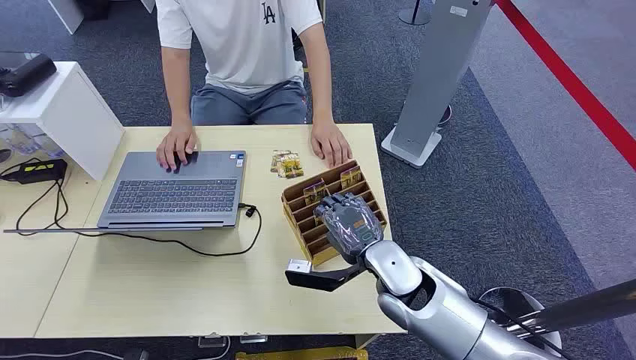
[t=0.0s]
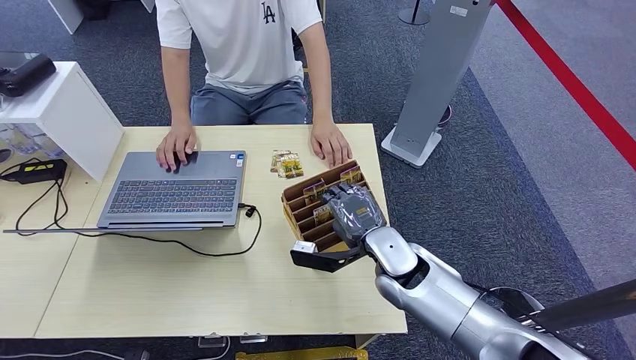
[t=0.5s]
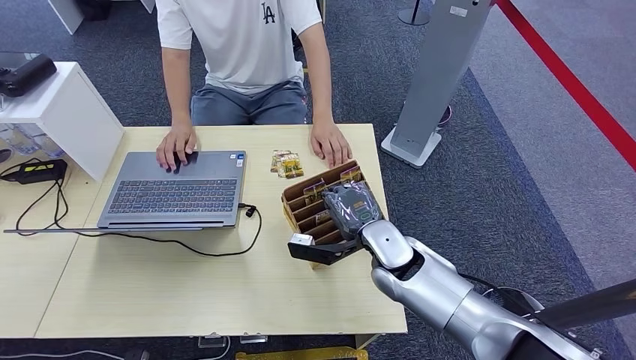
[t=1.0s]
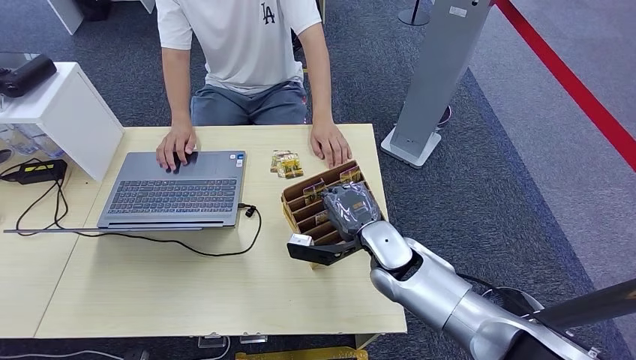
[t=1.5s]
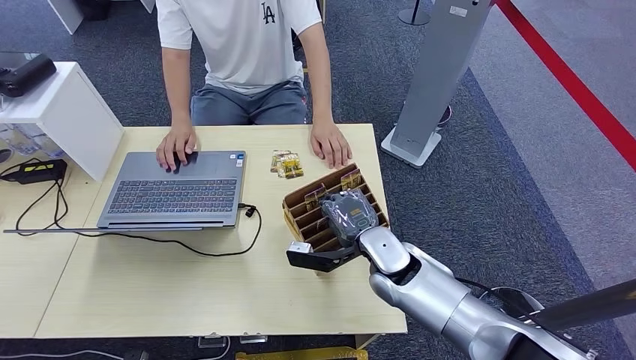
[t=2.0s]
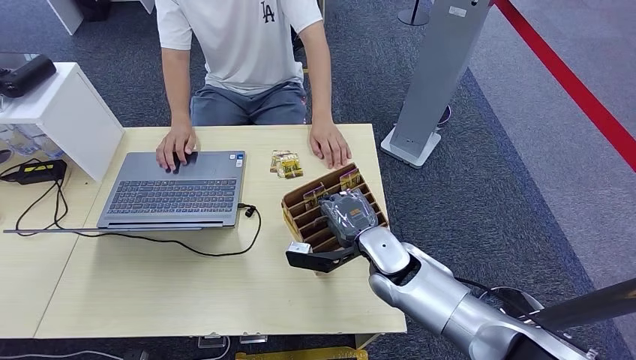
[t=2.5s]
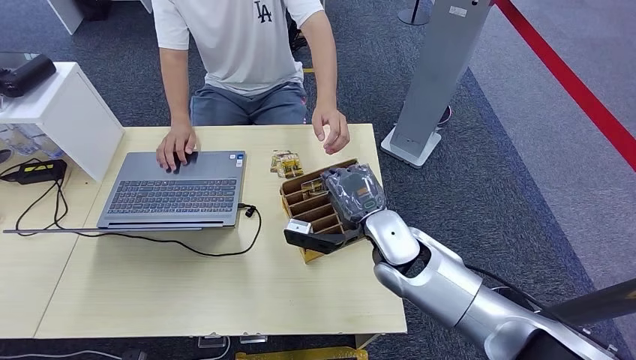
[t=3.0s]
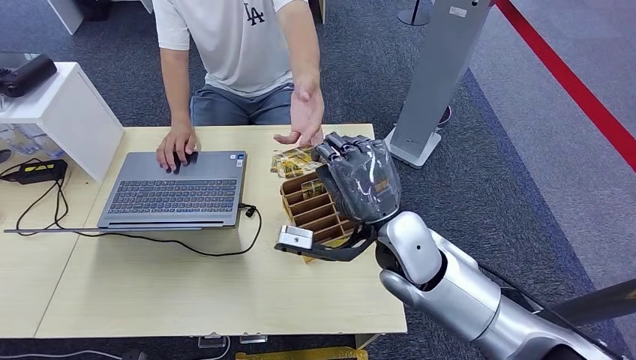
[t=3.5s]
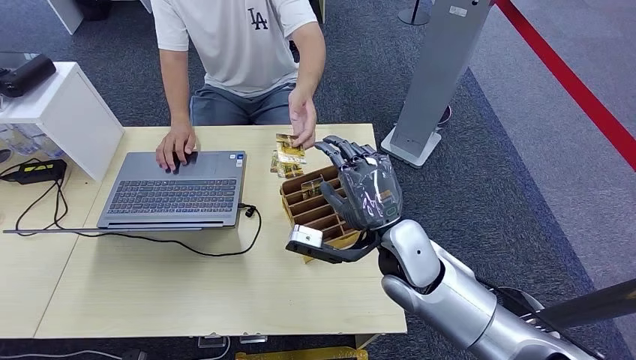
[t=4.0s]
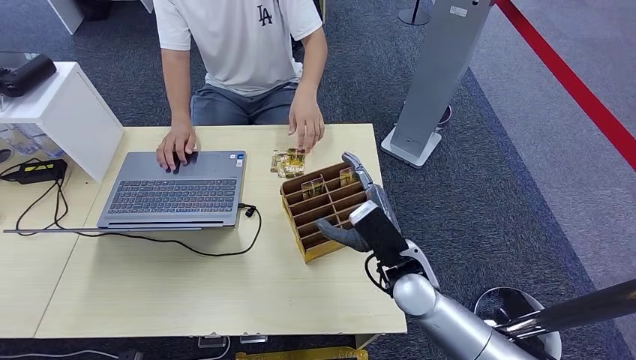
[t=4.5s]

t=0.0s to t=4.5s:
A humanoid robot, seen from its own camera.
Step, t=0.0s to t=2.5s: Pick up the key card from the card box.
Step, t=3.0s to t=4.5s: Hand the key card to the target.
t=2.0s to t=4.5s: The right hand travels upward and back again, approximately 10 cm each way.

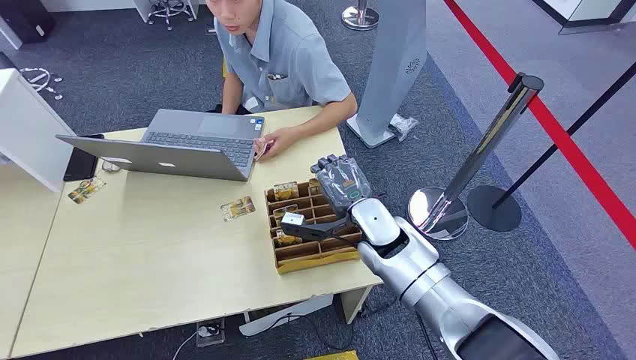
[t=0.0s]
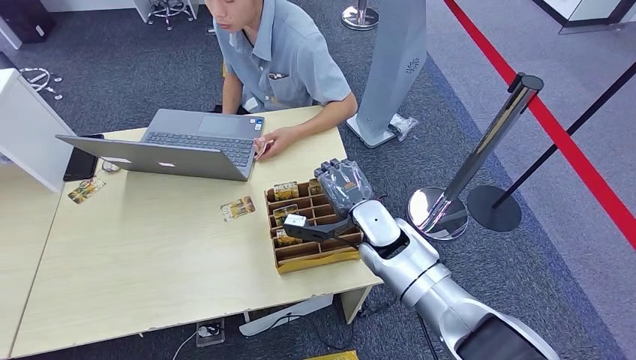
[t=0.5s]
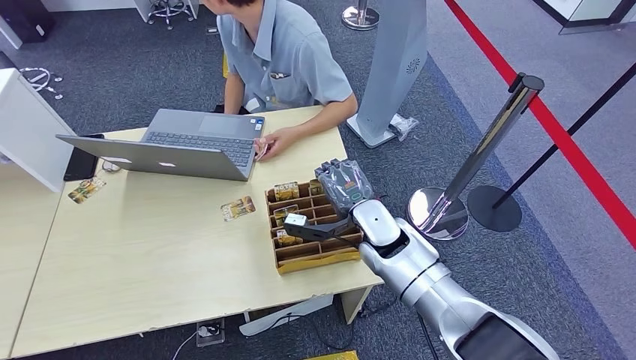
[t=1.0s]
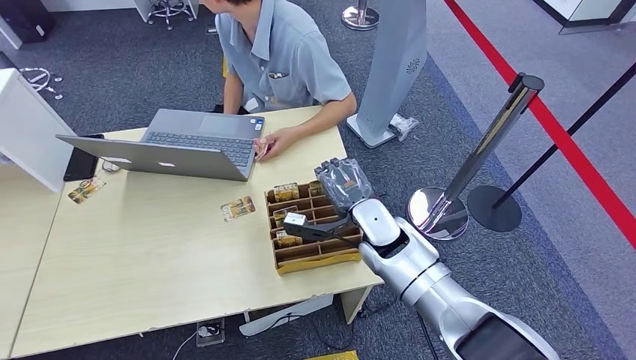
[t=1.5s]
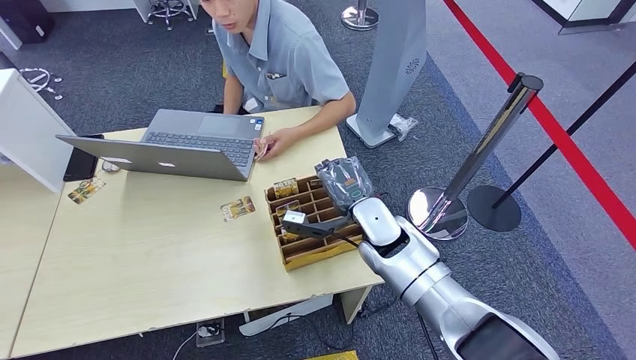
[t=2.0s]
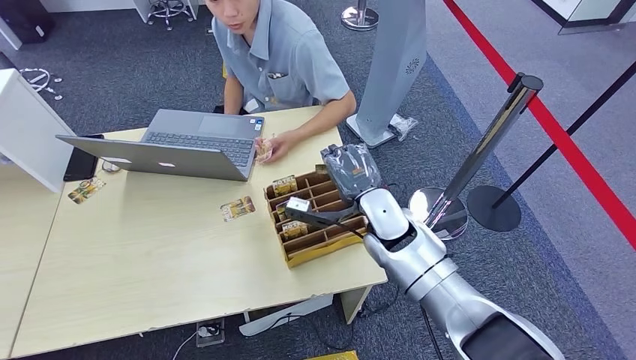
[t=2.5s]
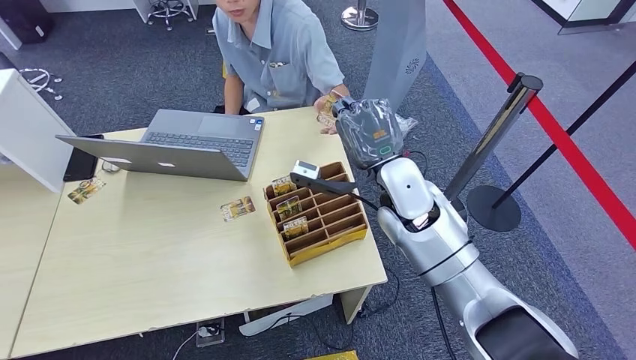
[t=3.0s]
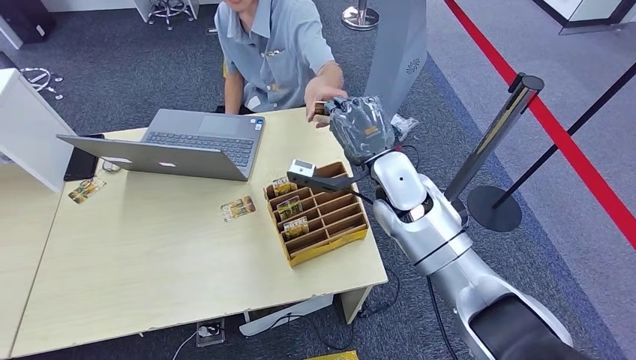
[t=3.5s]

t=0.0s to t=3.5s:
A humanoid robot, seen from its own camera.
Step, t=0.0s to t=2.0s: Pick up the key card from the card box.
Step, t=2.5s to t=3.5s: Hand the key card to the target.
t=2.0s to t=3.5s: The right hand goes approximately 10 cm upward.

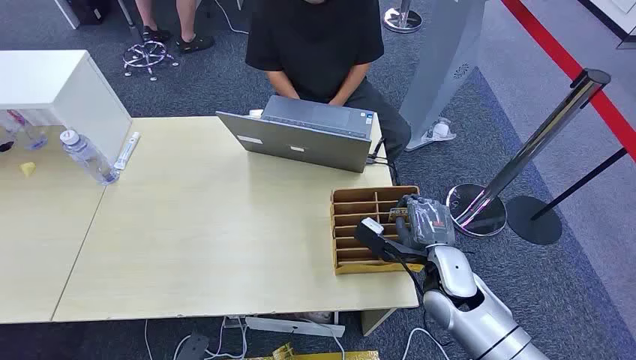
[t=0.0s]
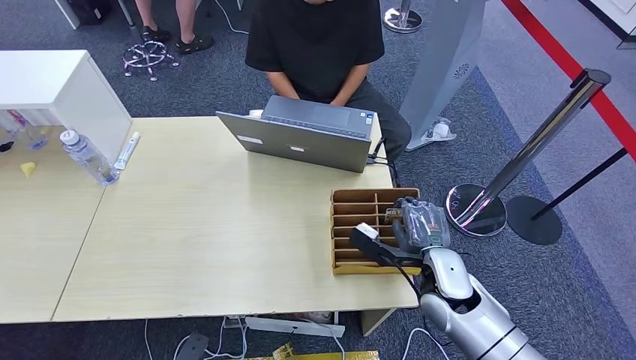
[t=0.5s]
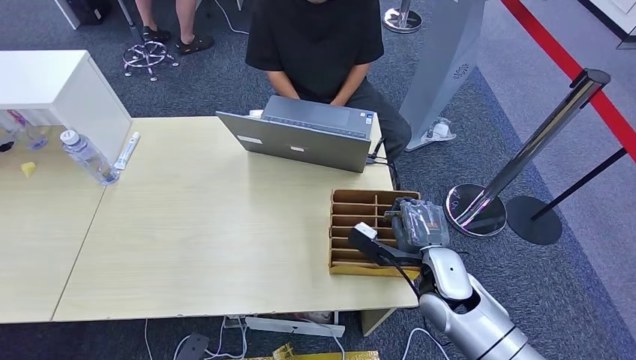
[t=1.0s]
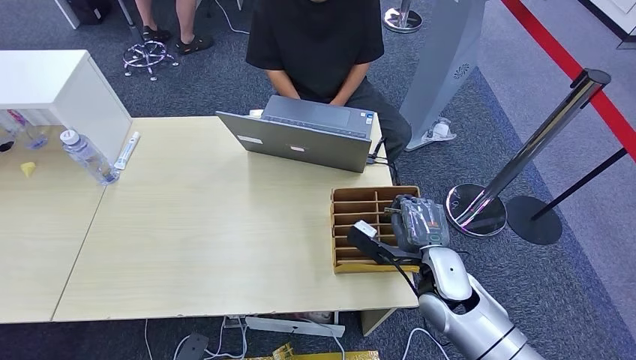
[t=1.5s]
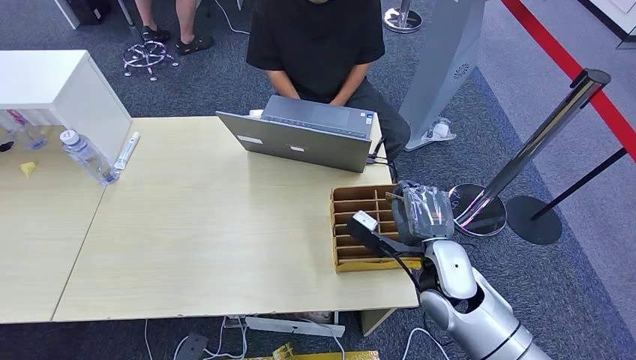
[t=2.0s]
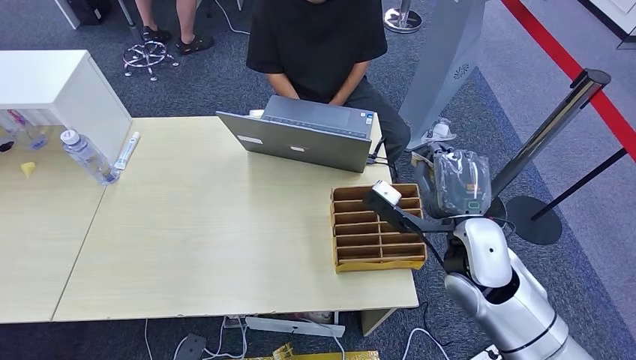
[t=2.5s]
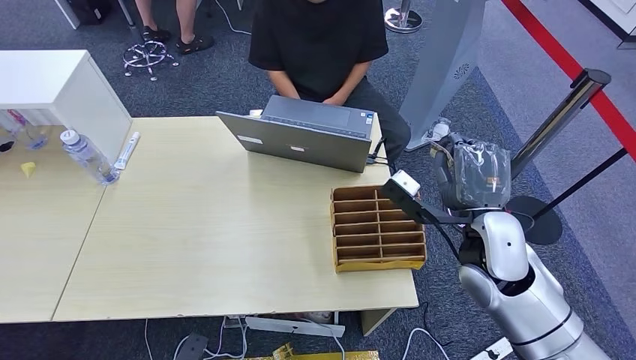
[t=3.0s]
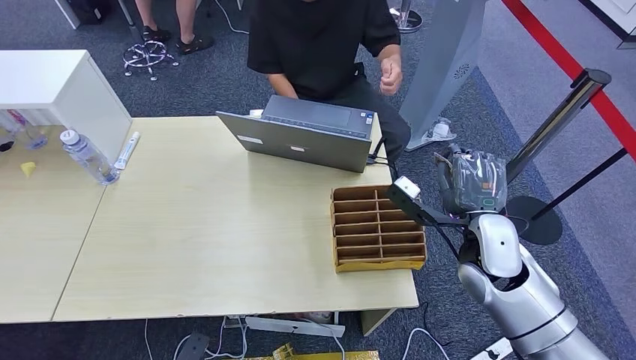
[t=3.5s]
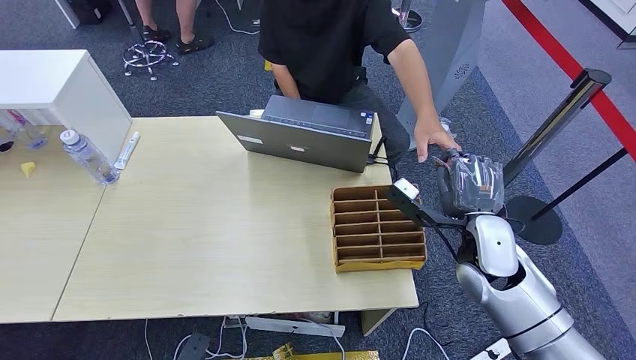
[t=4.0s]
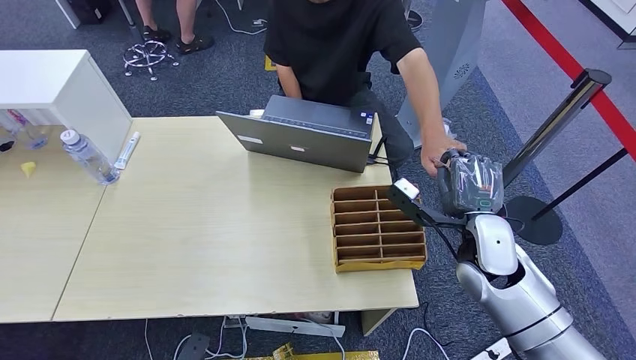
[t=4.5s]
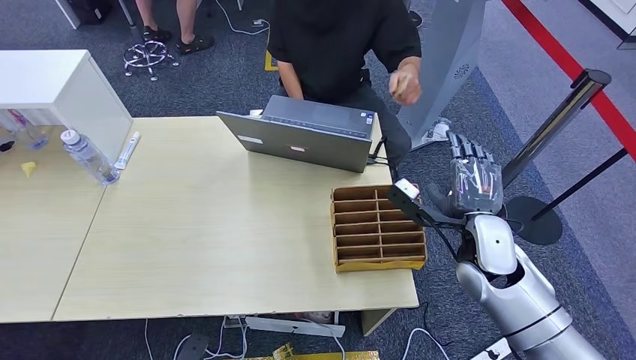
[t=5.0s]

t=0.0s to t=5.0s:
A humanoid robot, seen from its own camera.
Step, t=0.0s to t=2.5s: Pick up the key card from the card box.
Step, t=3.0s to t=5.0s: Hand the key card to the target.
t=2.5s to t=5.0s: The right hand changes place by roughly 5 cm.
